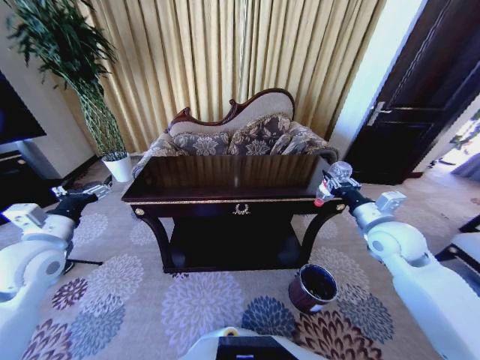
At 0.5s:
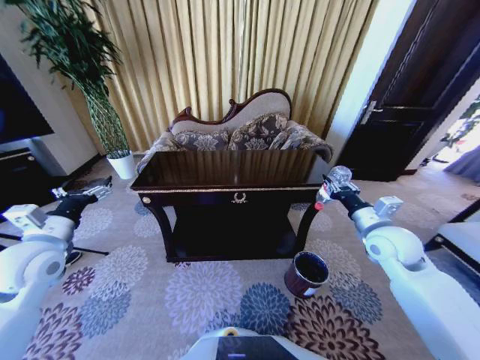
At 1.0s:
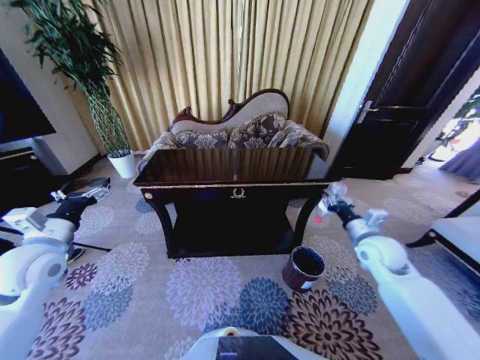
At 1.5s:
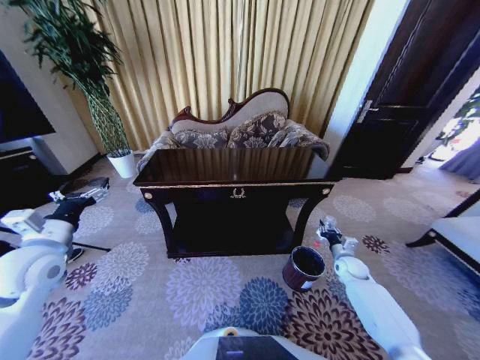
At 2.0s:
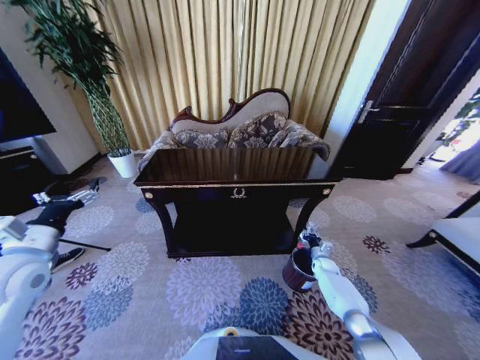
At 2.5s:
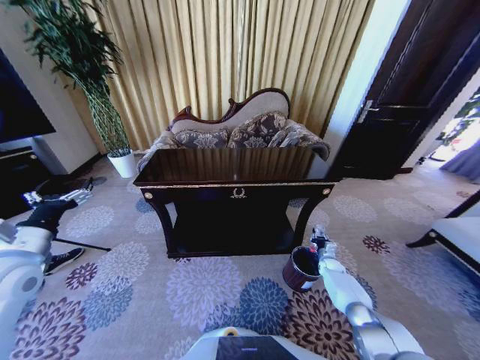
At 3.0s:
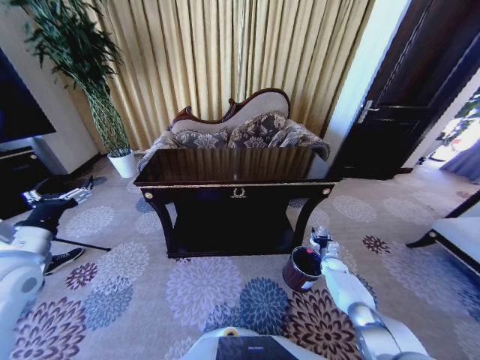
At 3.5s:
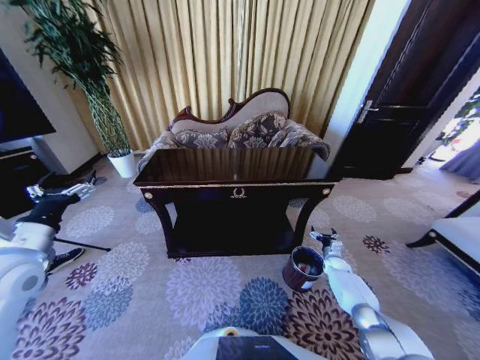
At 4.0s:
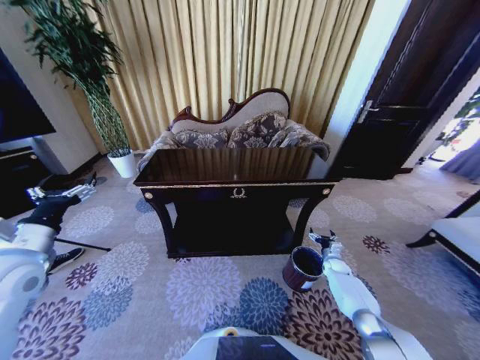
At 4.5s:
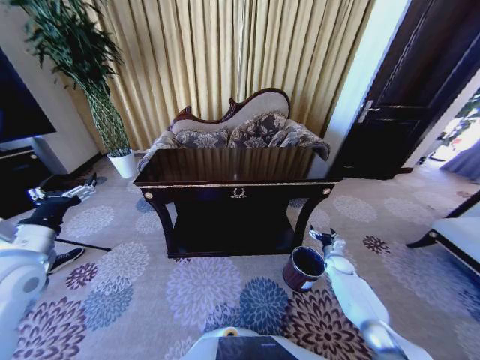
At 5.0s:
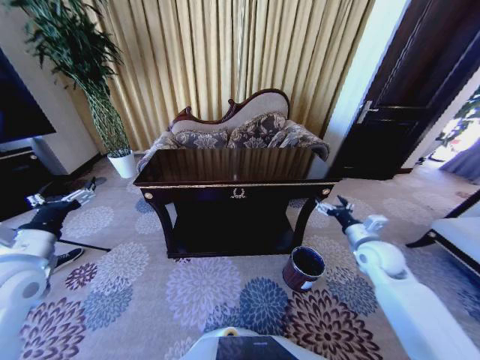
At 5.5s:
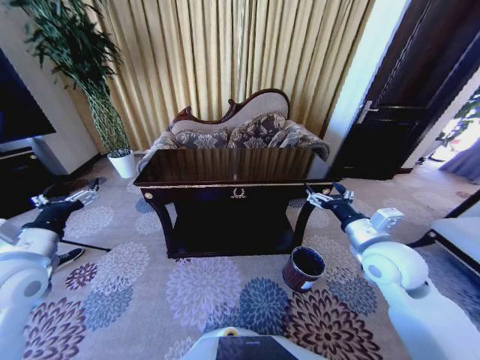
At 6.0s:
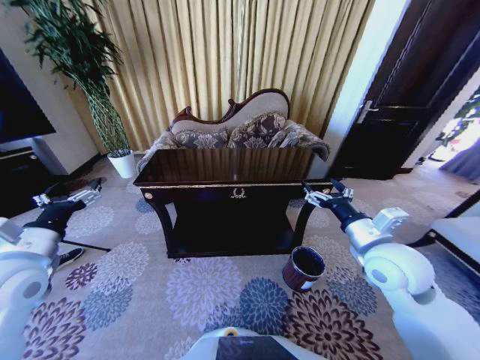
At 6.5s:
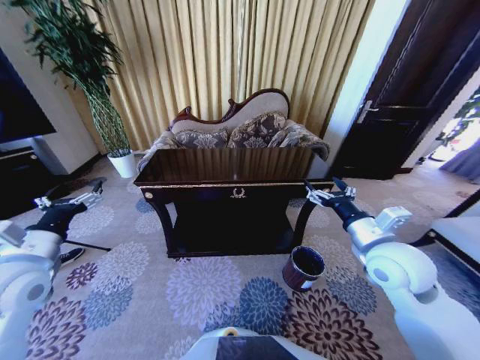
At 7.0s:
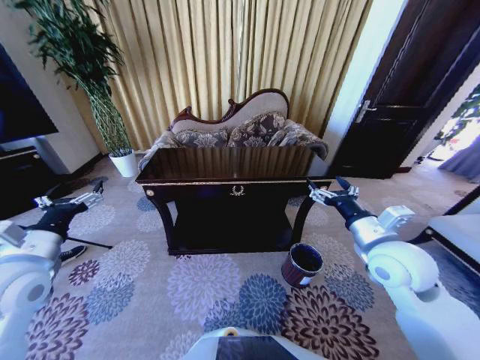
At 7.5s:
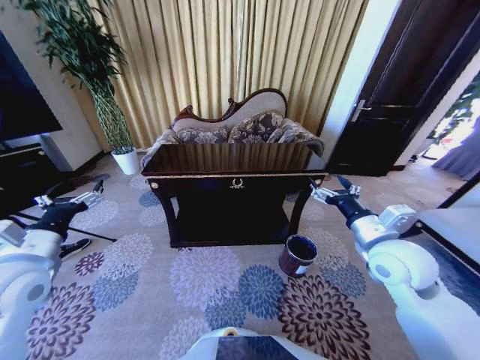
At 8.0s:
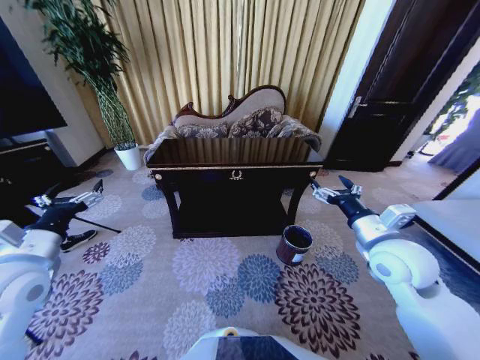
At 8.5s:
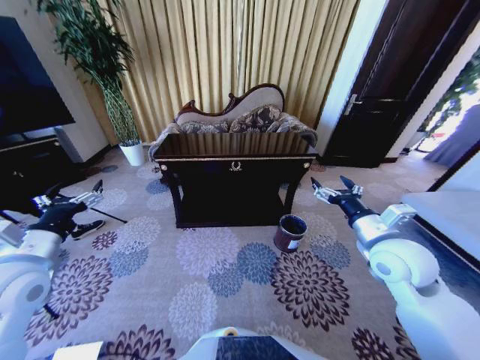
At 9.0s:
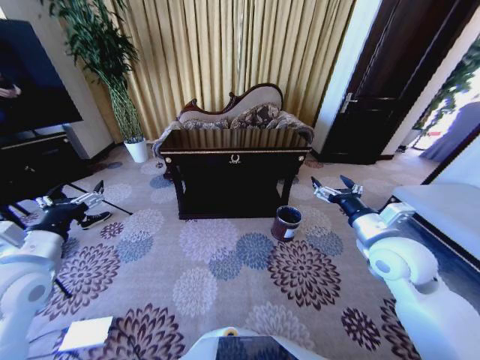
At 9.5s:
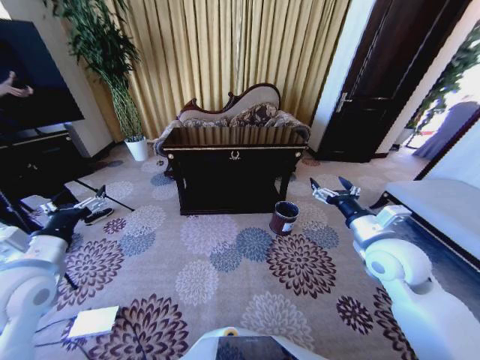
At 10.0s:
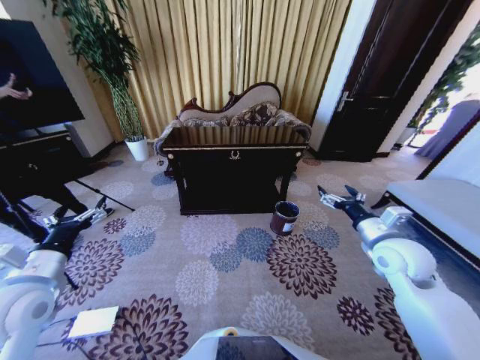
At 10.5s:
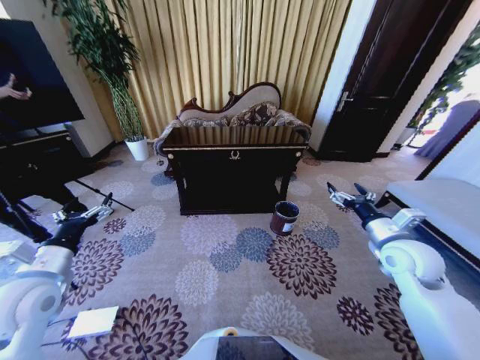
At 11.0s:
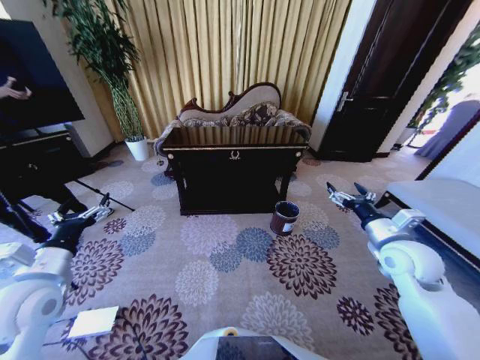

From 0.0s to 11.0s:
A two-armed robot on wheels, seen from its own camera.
Task of the whole recording: Move to the front of the table and place the trash on the table into the trash bin.
From 0.0s to 2.0s: The right gripper goes approximately 40 cm downward.
From 2.0s to 3.5s: The right gripper shifts roughly 5 cm to the right, and opens up.
From 3.5s to 5.5s: The right gripper shifts some 35 cm upward.
From 9.0s to 11.0s: The right gripper heads to the right, covering about 5 cm.

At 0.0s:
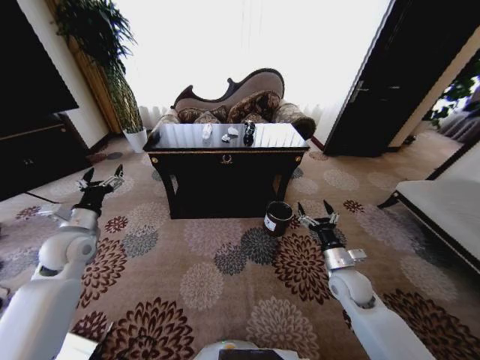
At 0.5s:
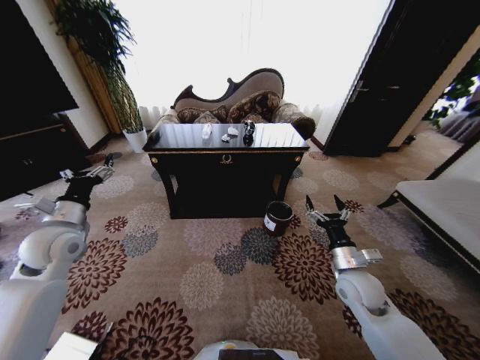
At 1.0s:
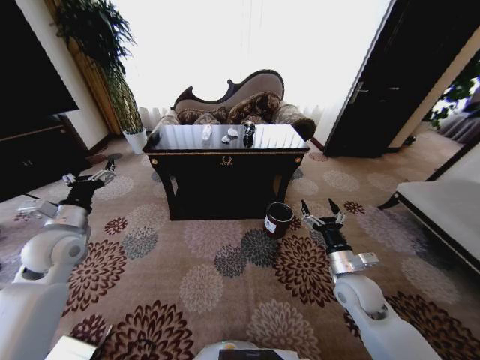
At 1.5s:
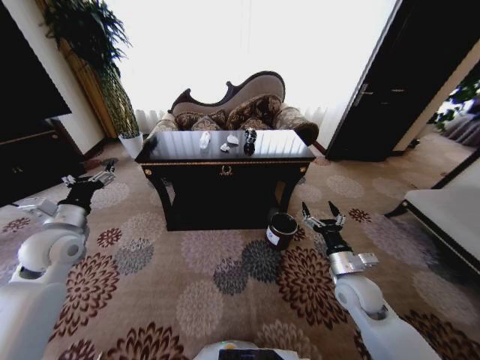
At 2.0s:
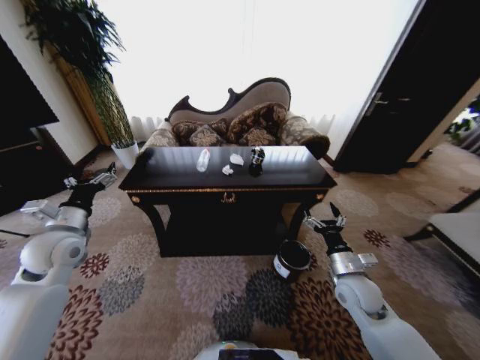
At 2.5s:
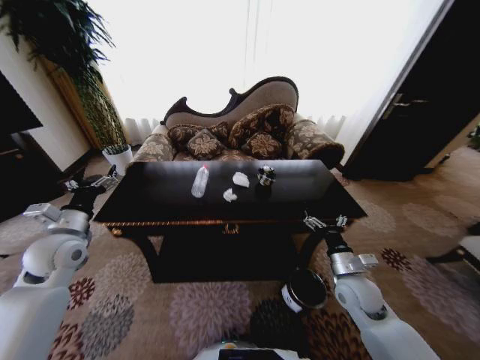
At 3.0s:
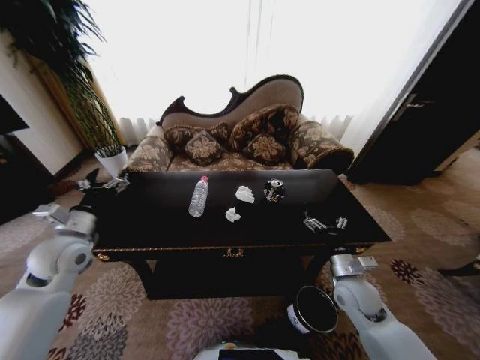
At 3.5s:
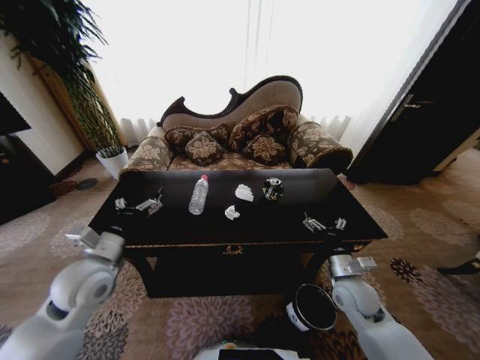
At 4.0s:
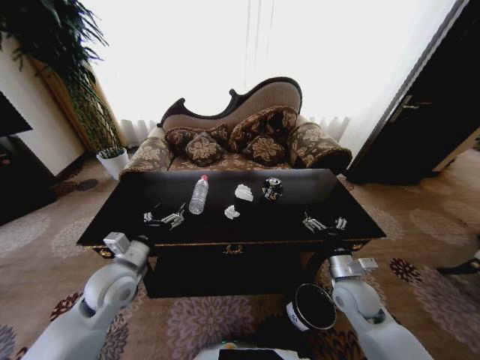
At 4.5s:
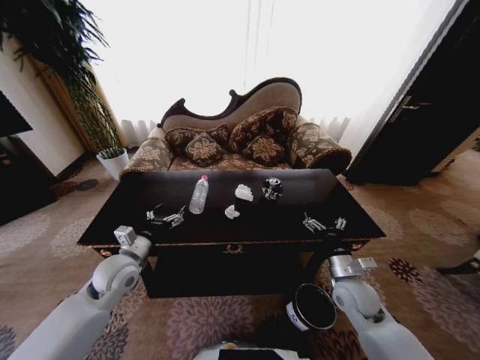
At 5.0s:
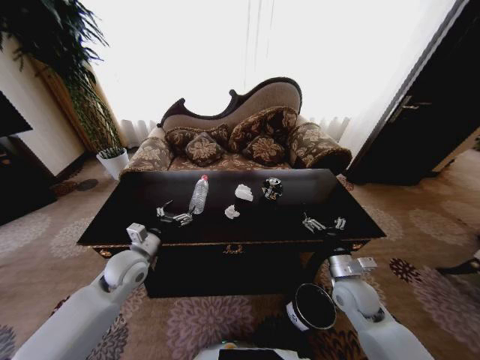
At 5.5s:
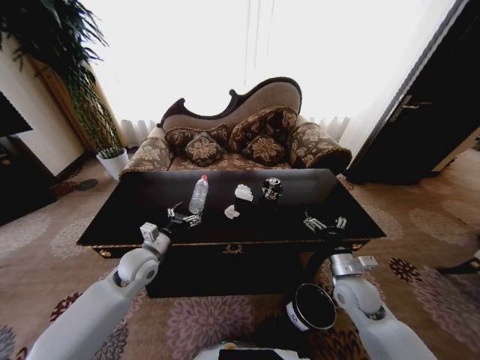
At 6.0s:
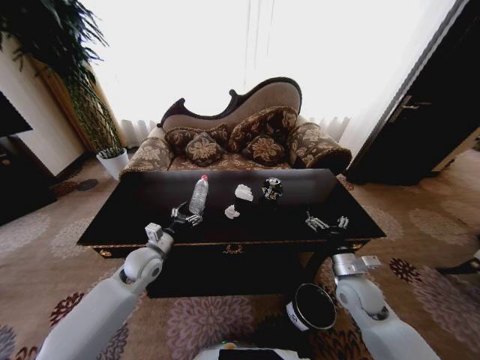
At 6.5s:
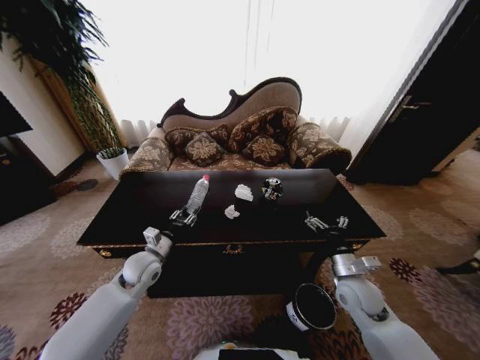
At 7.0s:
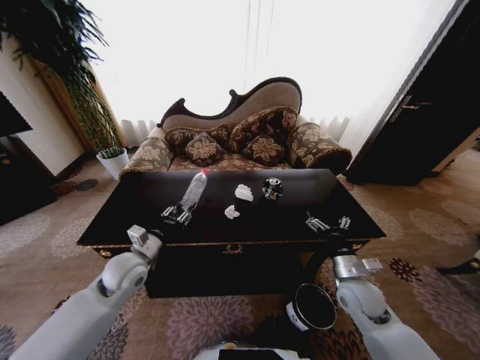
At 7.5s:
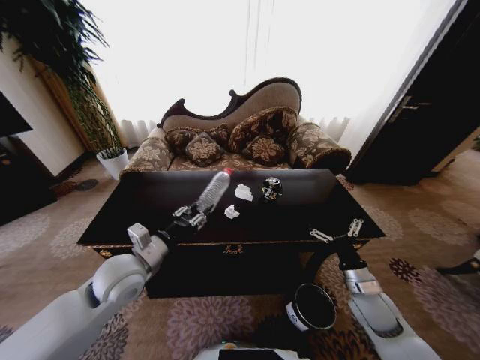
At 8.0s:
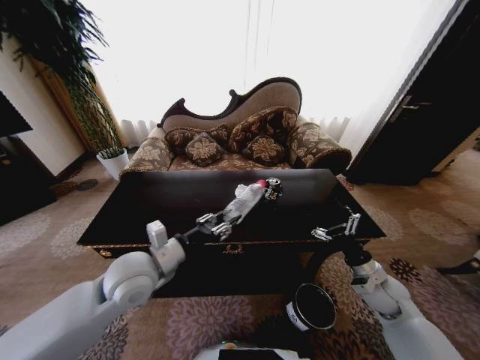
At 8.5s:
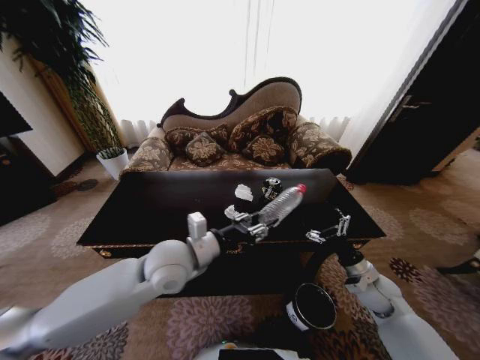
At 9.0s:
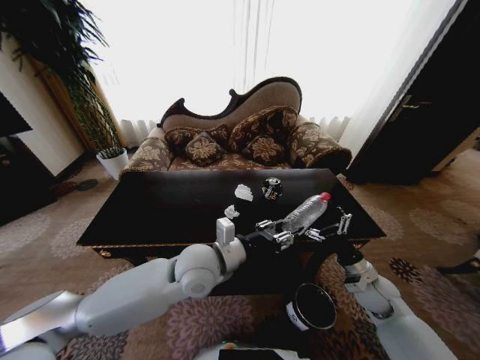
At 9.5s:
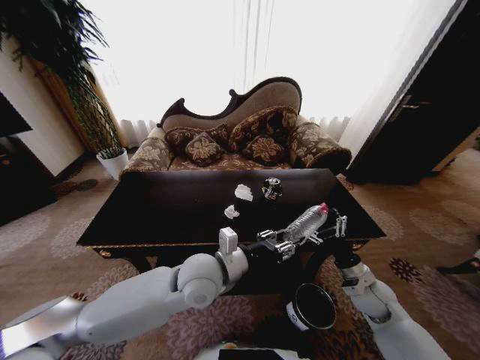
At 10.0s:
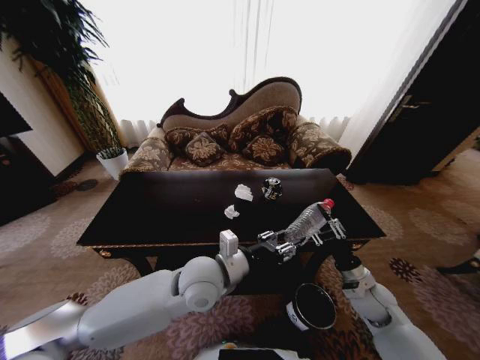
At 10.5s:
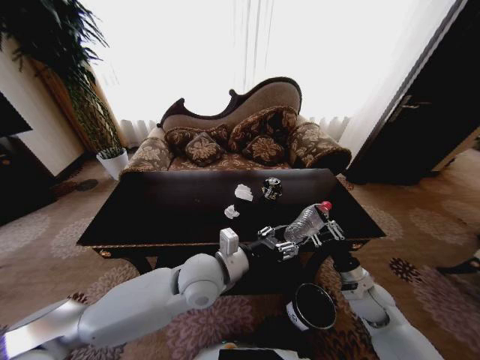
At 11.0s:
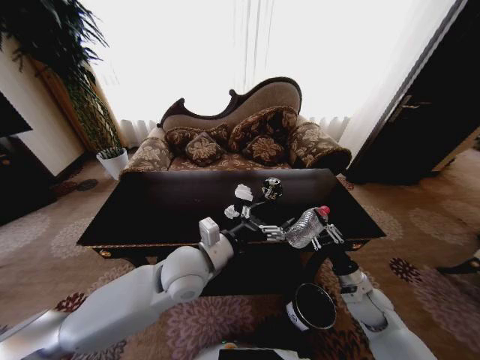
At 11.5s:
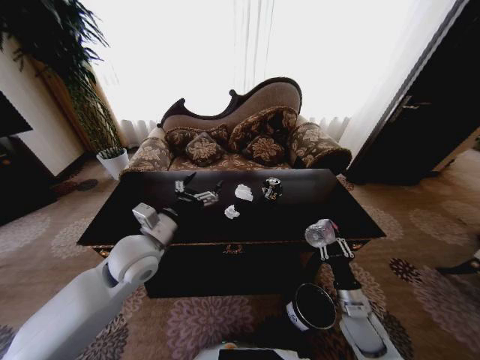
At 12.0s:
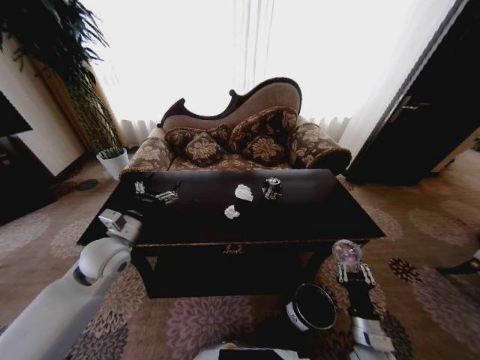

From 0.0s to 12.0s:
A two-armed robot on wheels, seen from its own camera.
Task of the whole recording: Move to the front of the table and place the trash on the table into the trash bin.
From 2.0s to 4.0s: The left gripper shifts approximately 15 cm to the right, downward and backward.
From 4.0s to 6.0s: The left gripper heads forward and downward, covering some 10 cm.
From 6.0s to 8.0s: The right gripper travels to the right by about 10 cm. The left gripper moves upward, backward and to the right, some 15 cm, and closes up.
From 8.0s to 10.0s: The right gripper closes, while the left gripper goes about 15 cm to the right.
From 10.0s to 12.0s: The left gripper is displaced to the left by some 25 cm, and opens its fingers. Meanwhile the right gripper travels backward and downward by some 15 cm.

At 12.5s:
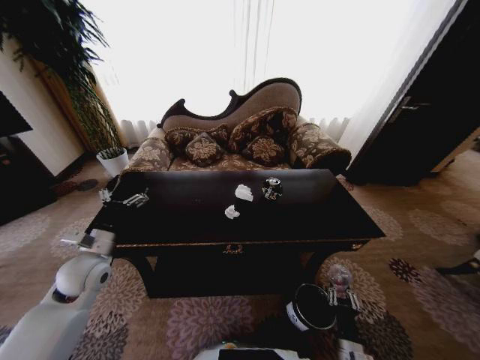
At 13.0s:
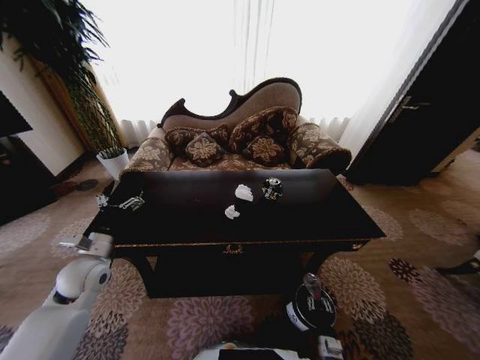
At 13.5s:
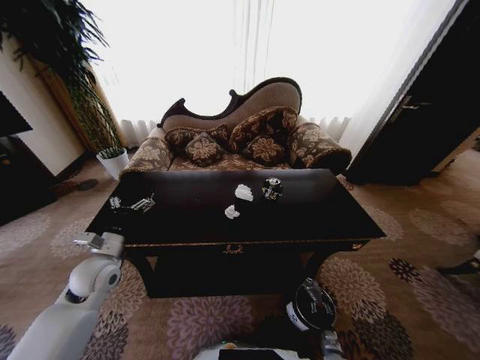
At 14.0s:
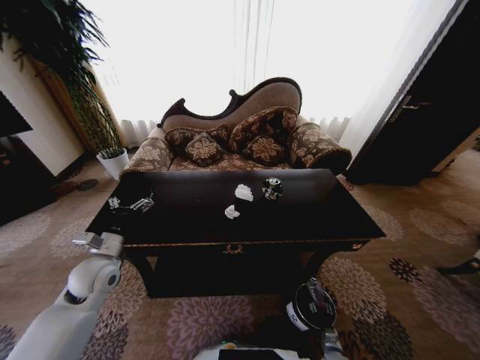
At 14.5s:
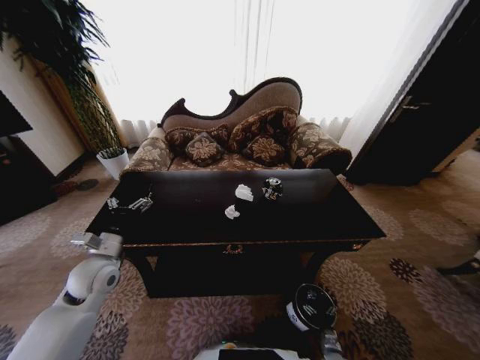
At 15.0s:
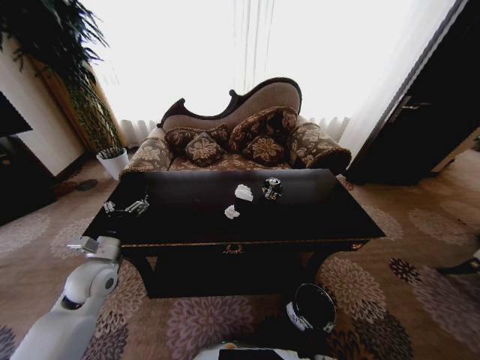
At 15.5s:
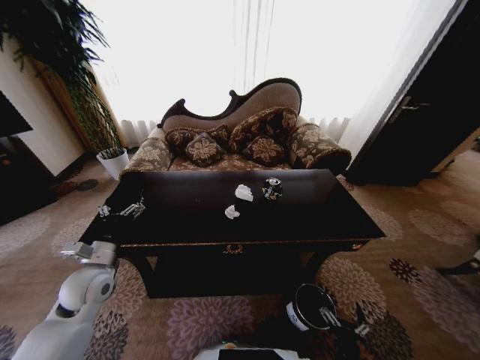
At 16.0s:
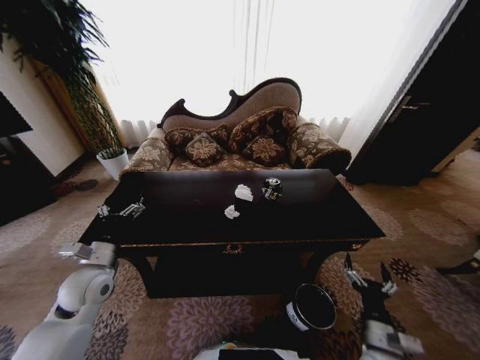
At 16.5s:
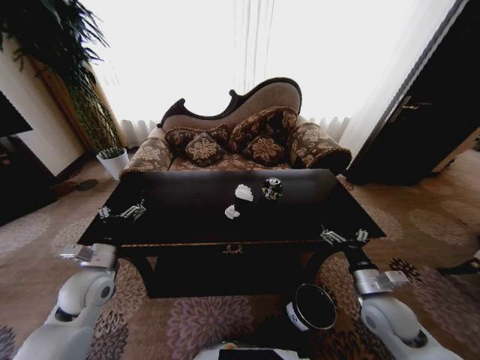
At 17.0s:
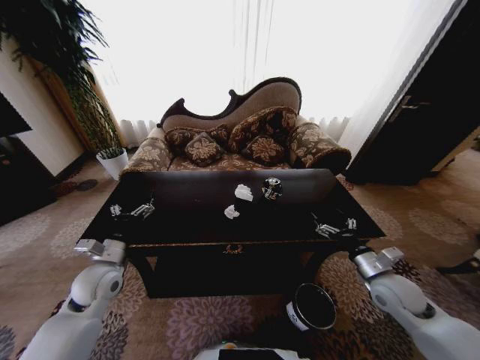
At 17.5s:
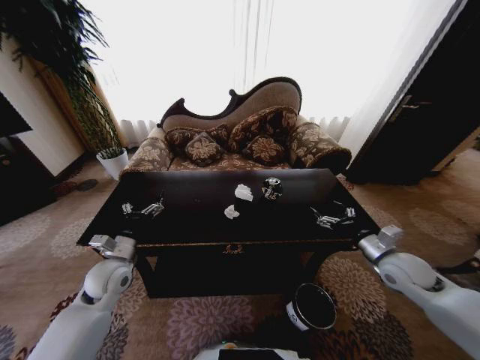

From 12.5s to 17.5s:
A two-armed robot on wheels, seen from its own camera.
Task of the whole recording: Move to the front of the table and place the trash on the table into the trash bin.
From 12.5s to 15.0s: The right gripper is displaced downward by about 15 cm, and opens up.
From 15.0s to 17.5s: The right gripper heads upward and forward, covering roughly 50 cm.
